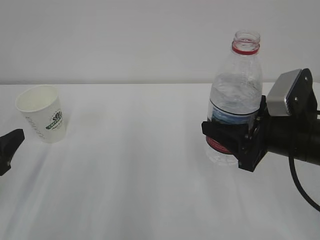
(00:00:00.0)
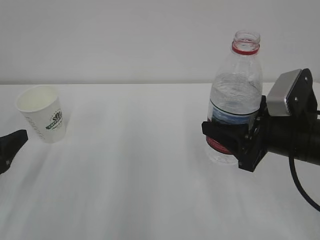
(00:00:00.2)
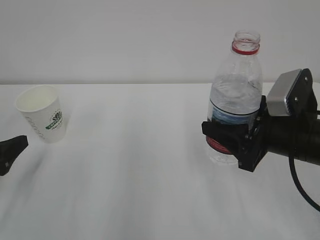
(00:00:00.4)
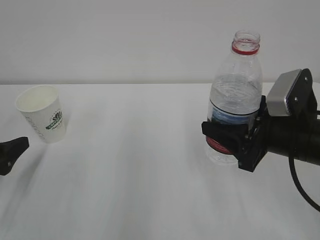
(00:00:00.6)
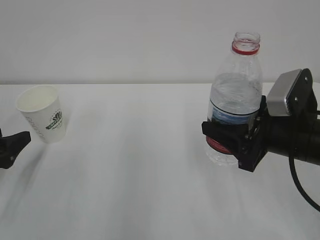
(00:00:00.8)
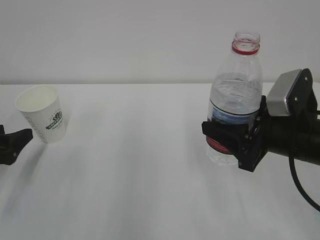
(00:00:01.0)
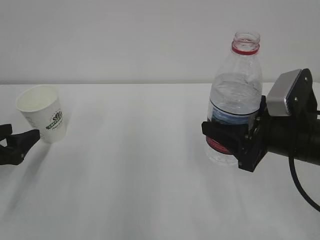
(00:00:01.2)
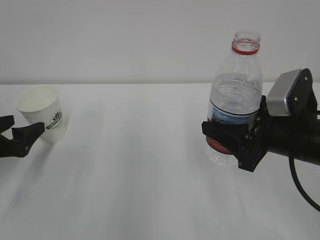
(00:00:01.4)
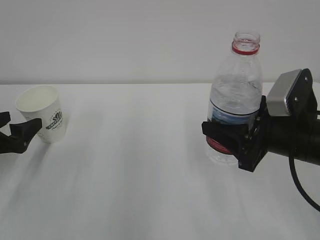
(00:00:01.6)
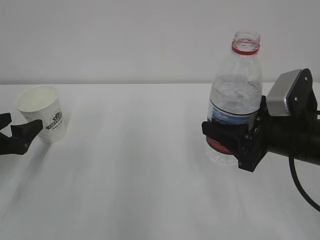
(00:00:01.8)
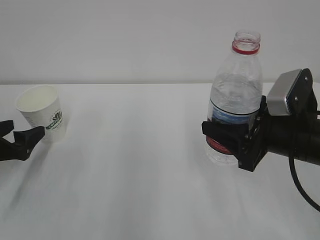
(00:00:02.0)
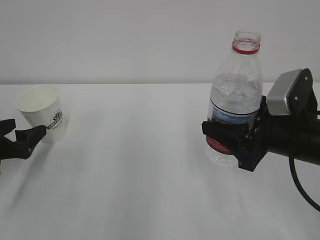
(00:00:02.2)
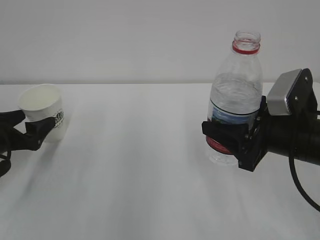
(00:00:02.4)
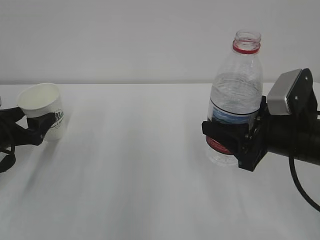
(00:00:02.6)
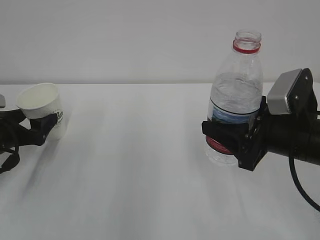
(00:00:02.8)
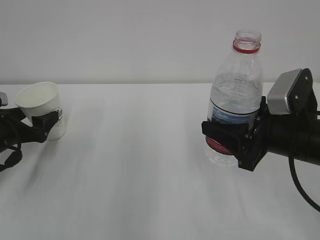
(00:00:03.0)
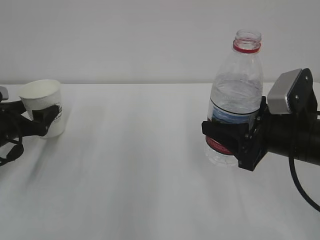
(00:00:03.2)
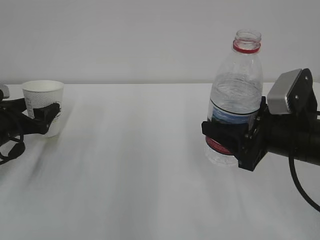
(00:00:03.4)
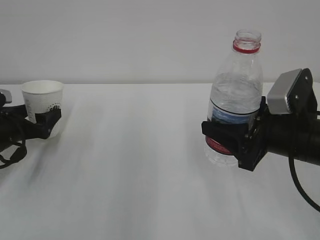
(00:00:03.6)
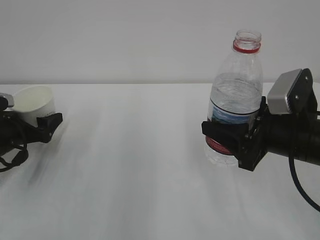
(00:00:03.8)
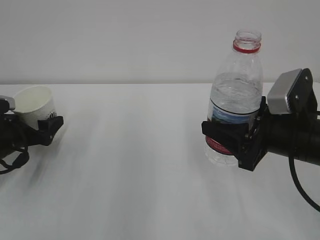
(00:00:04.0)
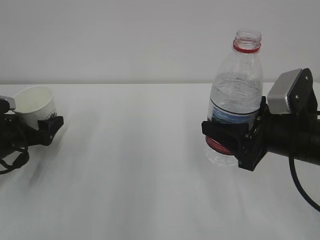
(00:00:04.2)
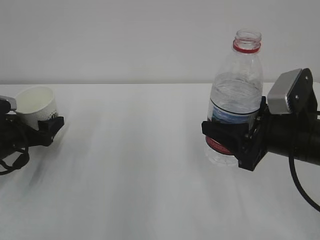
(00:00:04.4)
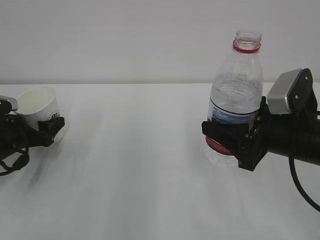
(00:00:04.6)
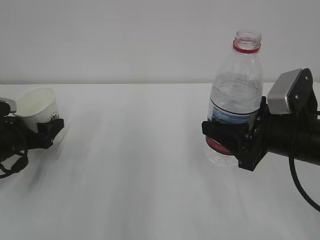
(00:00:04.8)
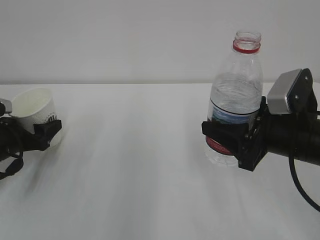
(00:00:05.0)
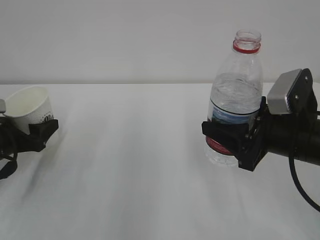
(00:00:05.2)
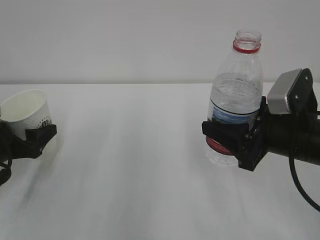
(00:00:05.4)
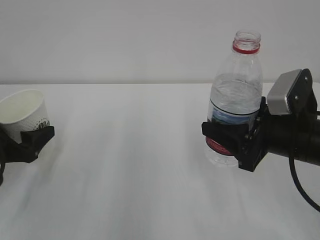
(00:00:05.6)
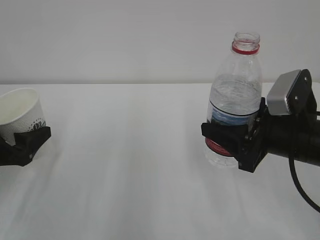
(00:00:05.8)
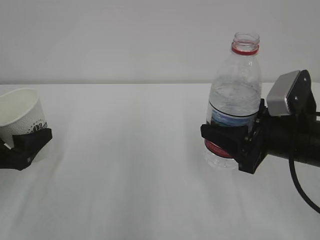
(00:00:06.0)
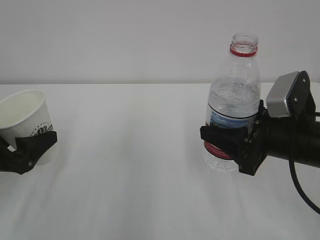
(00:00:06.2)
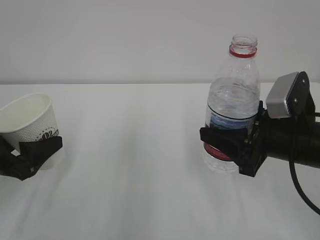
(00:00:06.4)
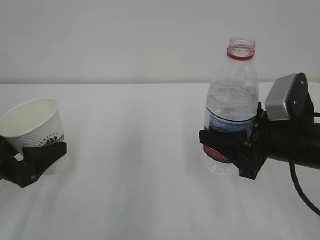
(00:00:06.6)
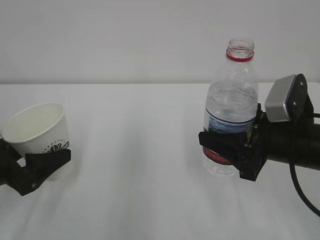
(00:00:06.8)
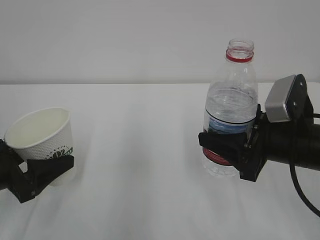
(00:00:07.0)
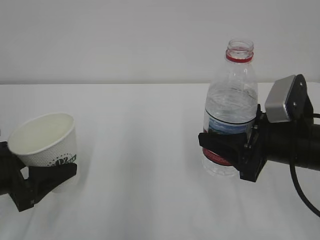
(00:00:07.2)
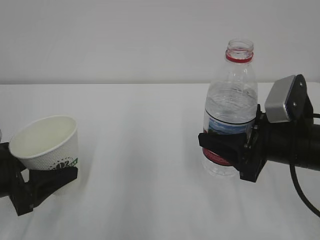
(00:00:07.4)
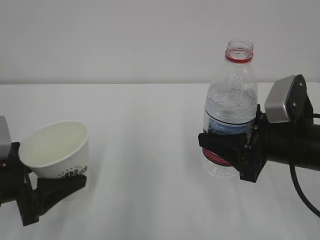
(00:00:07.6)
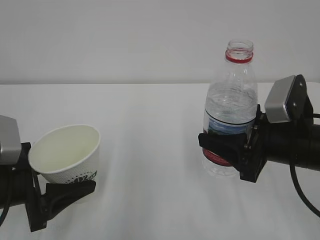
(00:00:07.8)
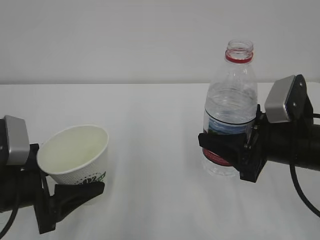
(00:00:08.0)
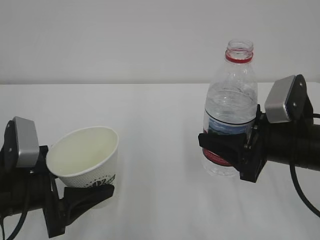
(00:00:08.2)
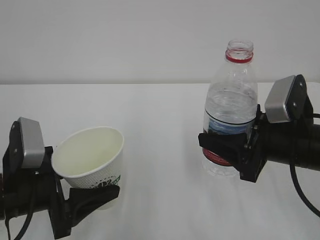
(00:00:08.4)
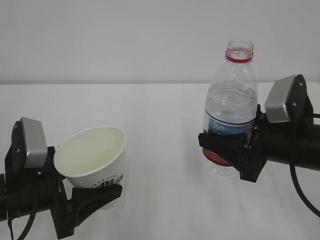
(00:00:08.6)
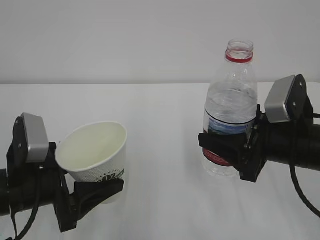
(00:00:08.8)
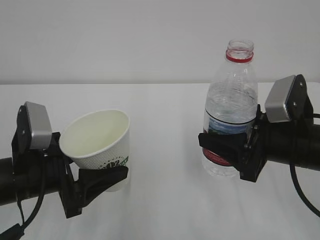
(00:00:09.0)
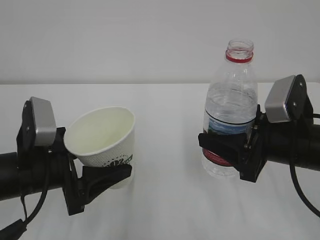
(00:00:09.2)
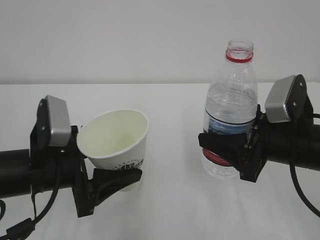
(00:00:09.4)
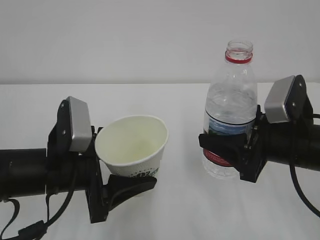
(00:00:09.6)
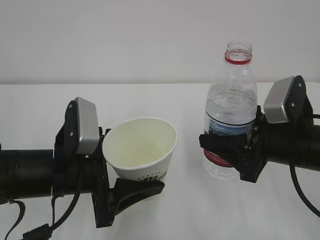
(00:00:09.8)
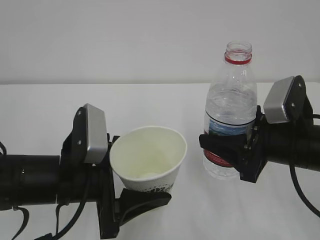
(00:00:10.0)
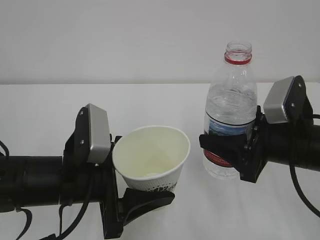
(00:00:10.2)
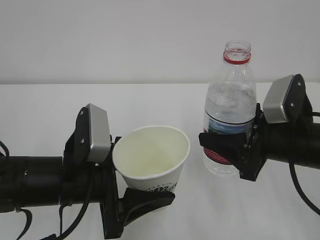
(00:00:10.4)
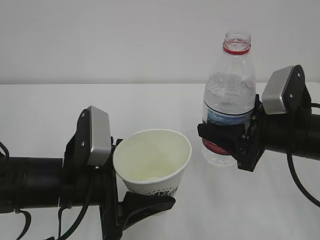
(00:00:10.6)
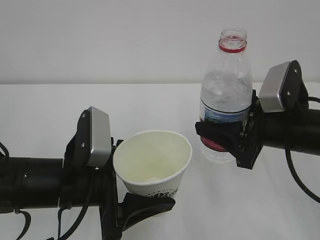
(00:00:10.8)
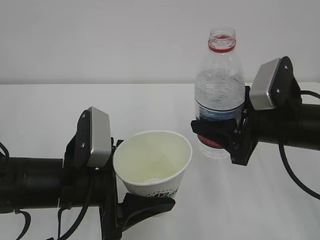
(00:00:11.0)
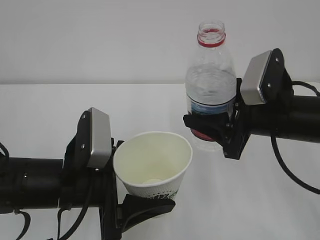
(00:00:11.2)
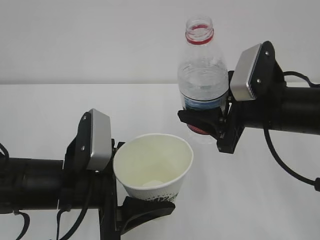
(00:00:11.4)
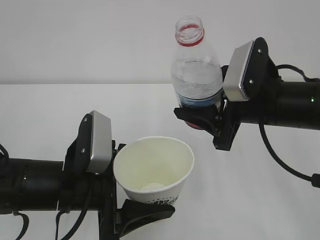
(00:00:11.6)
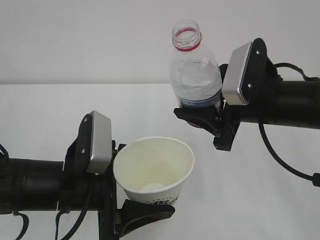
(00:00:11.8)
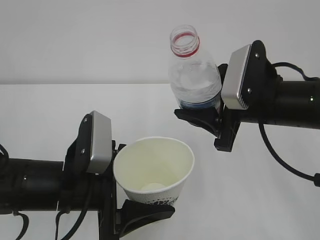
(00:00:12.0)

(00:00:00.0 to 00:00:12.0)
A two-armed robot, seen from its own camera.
00:00:00.0 - 00:00:01.6: The left gripper moves forward, roughly 10 cm, and opens its fingers.
00:00:01.6 - 00:00:03.0: The left gripper shifts by roughly 5 cm.
00:00:03.0 - 00:00:04.4: The left gripper closes up.
00:00:04.4 - 00:00:06.0: The left gripper is displaced backward and upward by roughly 10 cm.
00:00:06.0 - 00:00:07.6: The left gripper moves about 5 cm.
00:00:07.6 - 00:00:09.0: The left gripper heads to the right, covering some 5 cm.
00:00:09.0 - 00:00:10.4: The left gripper travels to the right by approximately 5 cm.
00:00:10.4 - 00:00:12.0: The right gripper moves about 5 cm.

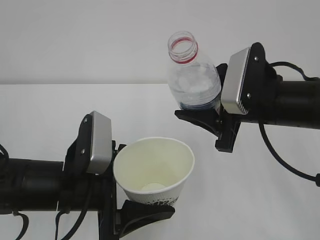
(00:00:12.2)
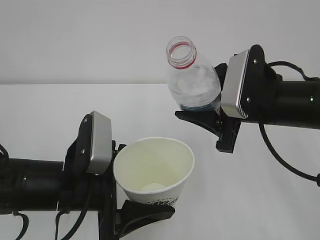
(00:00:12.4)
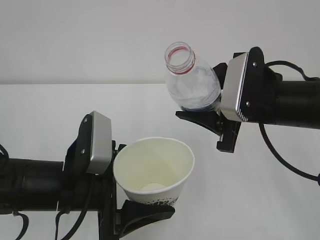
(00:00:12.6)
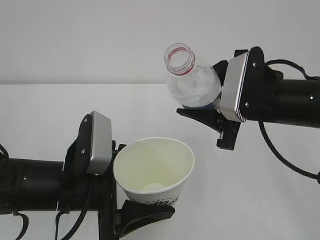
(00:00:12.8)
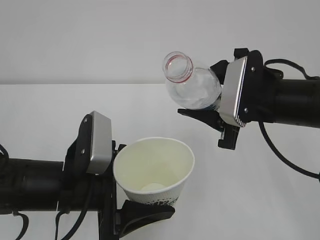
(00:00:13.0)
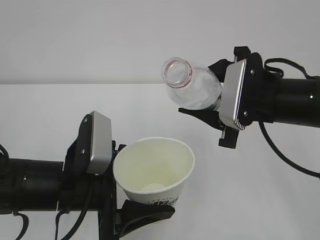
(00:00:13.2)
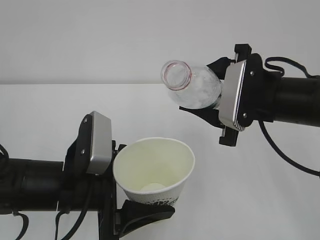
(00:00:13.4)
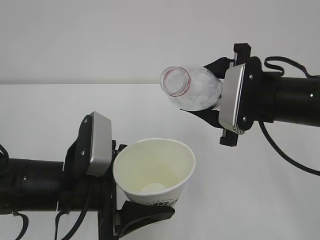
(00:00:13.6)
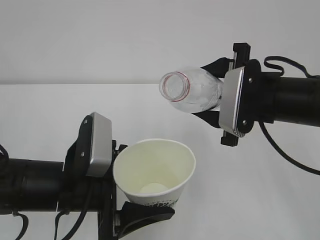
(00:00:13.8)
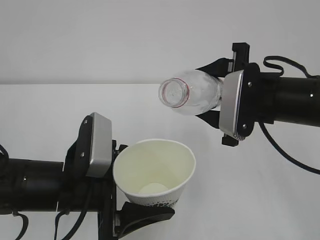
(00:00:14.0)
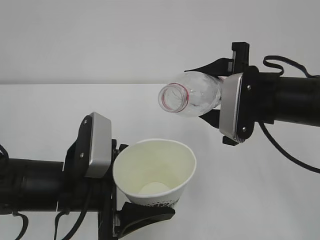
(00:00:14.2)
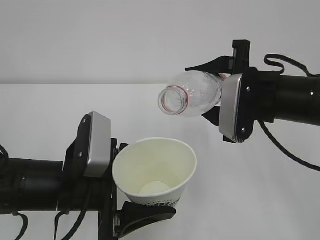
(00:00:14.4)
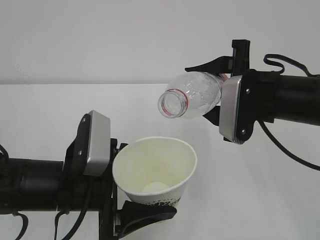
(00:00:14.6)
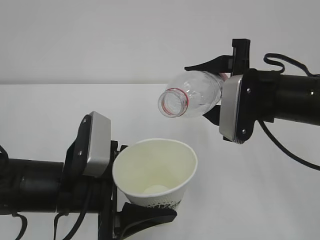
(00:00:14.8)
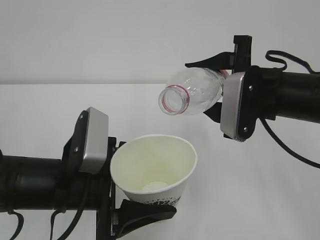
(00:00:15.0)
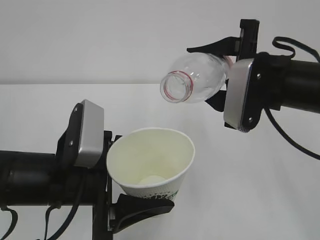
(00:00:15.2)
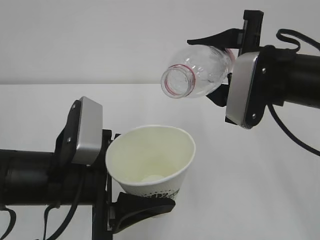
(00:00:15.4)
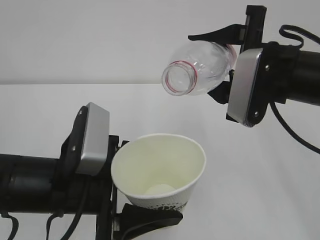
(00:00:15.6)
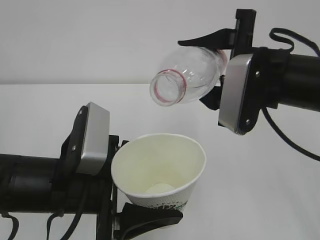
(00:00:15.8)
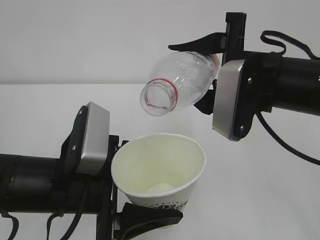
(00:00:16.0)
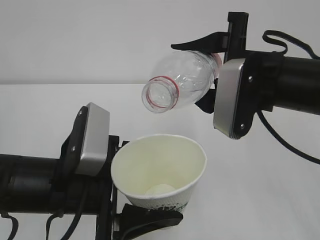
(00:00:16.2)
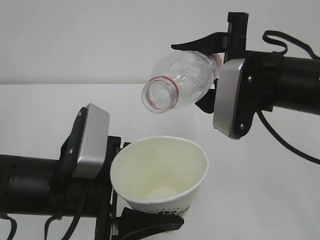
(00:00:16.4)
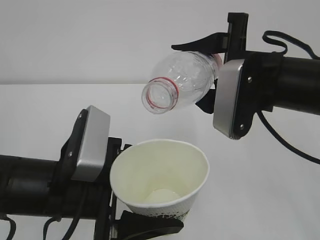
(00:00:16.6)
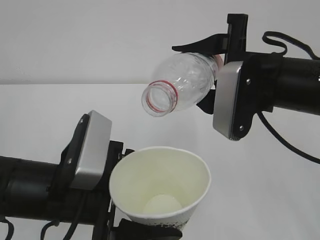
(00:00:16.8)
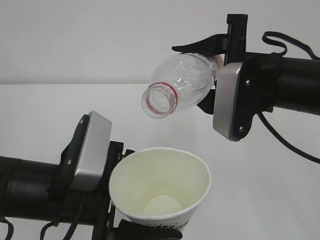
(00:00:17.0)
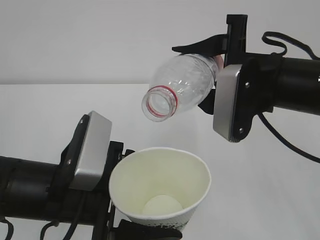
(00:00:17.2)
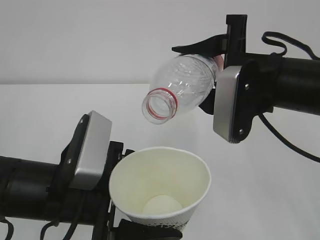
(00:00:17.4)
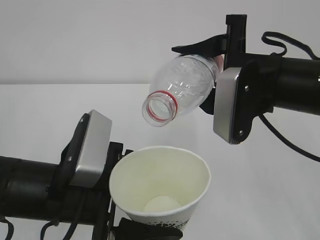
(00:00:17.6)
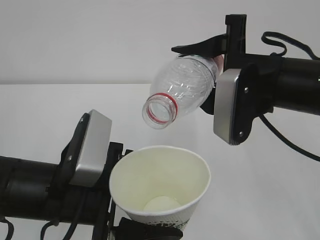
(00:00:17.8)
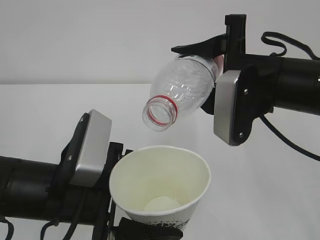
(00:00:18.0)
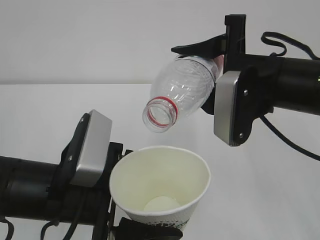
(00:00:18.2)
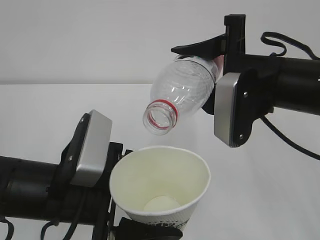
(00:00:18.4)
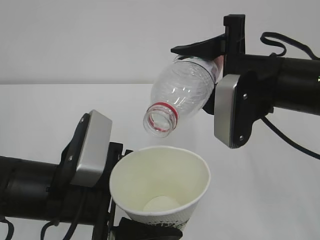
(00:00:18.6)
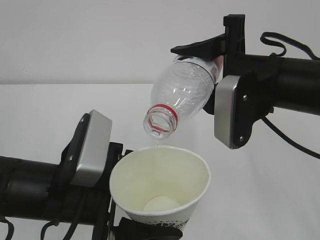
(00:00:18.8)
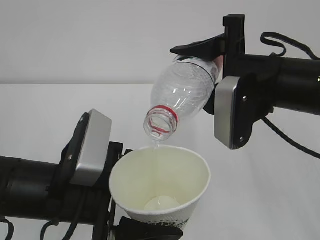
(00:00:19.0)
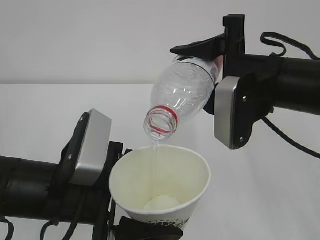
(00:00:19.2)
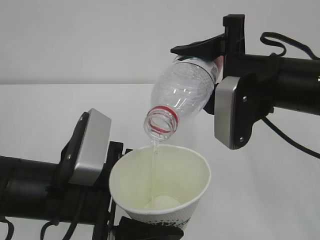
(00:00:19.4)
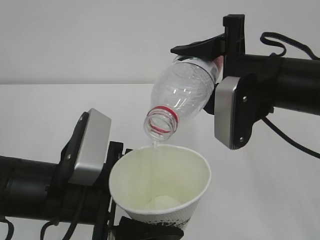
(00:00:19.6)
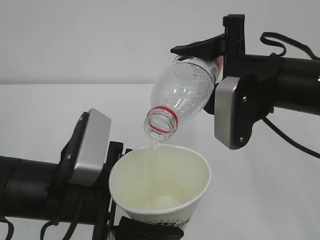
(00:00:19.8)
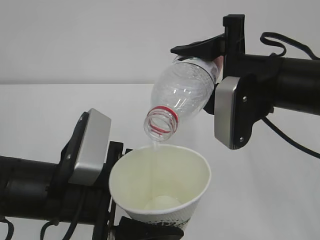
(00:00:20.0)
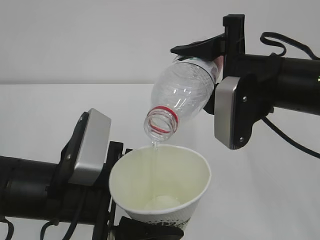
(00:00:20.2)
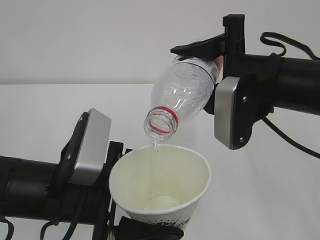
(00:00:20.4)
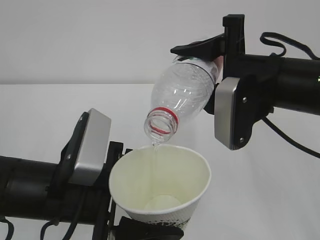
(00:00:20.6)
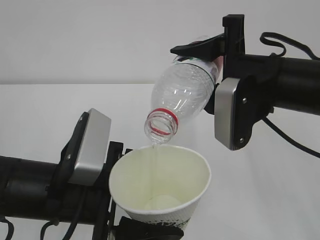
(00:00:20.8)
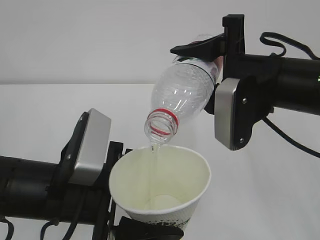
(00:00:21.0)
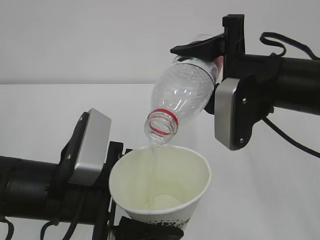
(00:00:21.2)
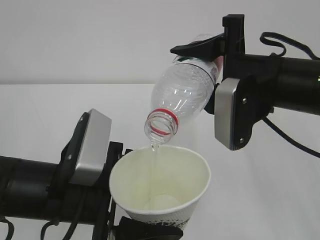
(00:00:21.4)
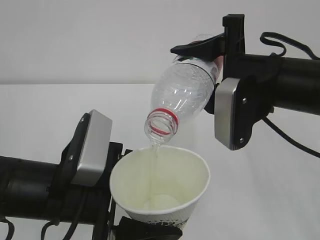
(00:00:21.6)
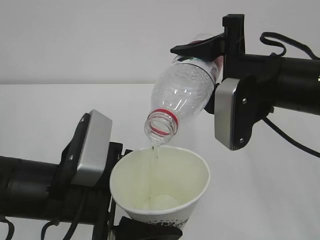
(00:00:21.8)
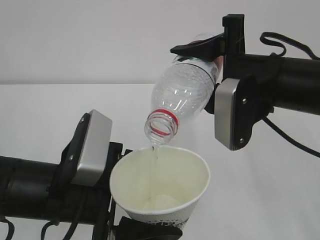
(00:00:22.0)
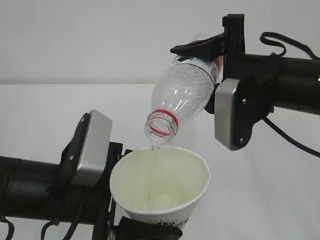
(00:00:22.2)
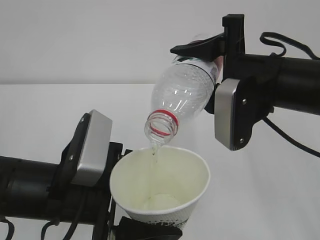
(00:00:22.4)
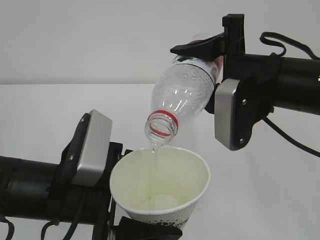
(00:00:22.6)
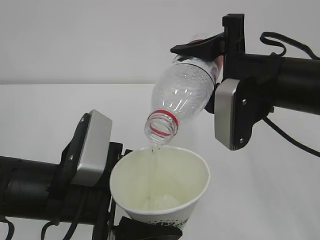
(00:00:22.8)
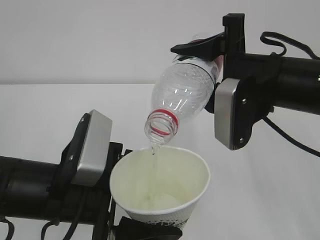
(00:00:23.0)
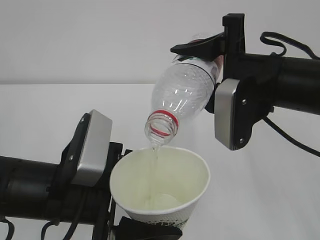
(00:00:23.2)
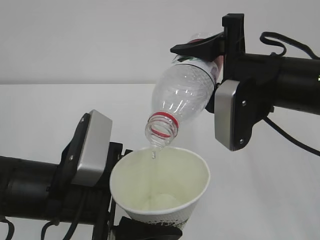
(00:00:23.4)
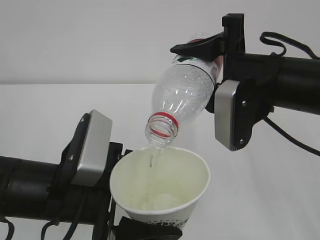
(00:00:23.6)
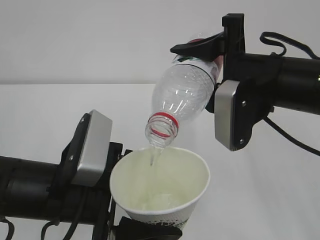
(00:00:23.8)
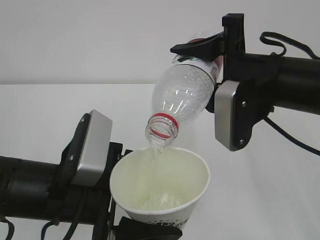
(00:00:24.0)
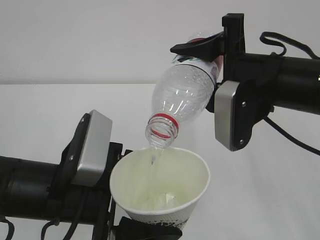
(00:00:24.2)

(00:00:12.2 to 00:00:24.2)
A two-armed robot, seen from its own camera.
00:00:13.8 - 00:00:16.6: There are only small adjustments of the grippers.
00:00:16.6 - 00:00:18.2: The grippers make only small movements.
00:00:18.2 - 00:00:19.8: The two grippers keep their place.
00:00:19.8 - 00:00:24.2: Both grippers stay put.
